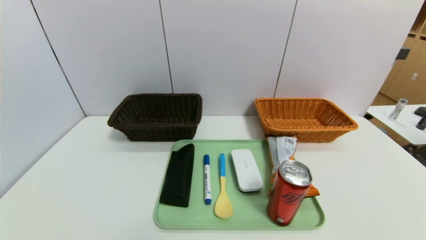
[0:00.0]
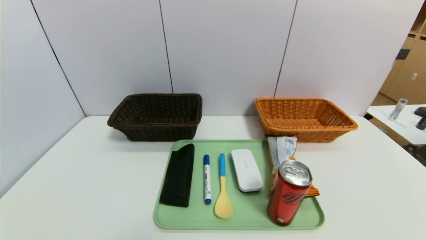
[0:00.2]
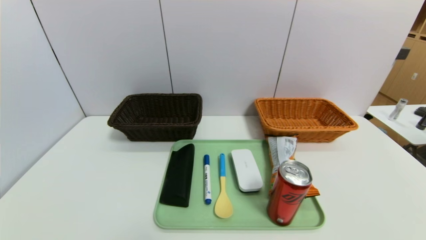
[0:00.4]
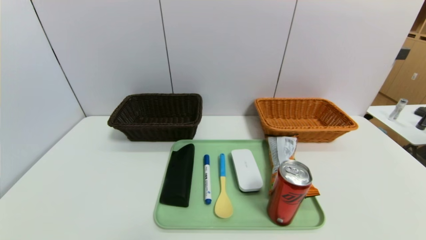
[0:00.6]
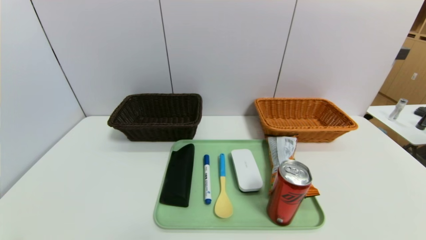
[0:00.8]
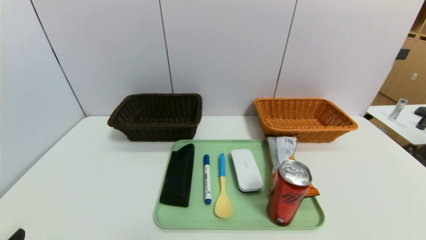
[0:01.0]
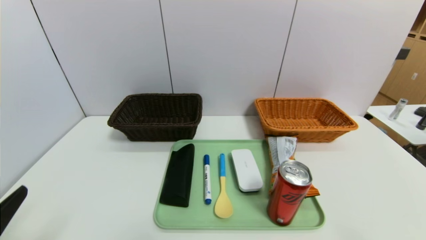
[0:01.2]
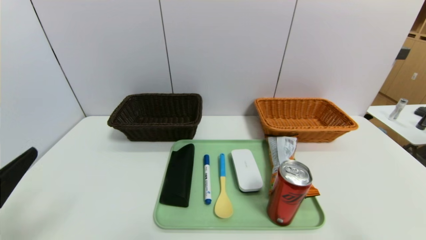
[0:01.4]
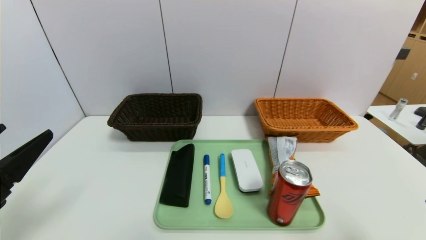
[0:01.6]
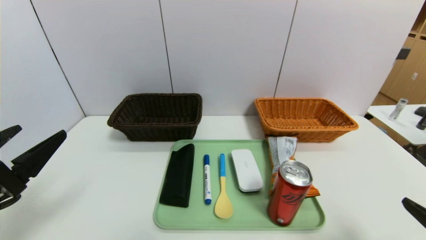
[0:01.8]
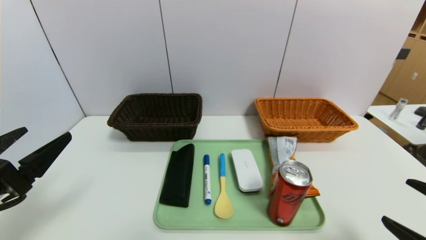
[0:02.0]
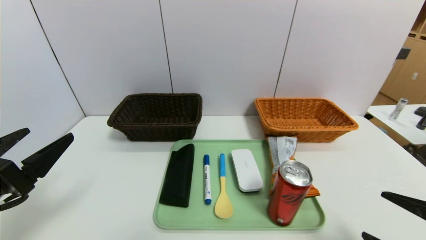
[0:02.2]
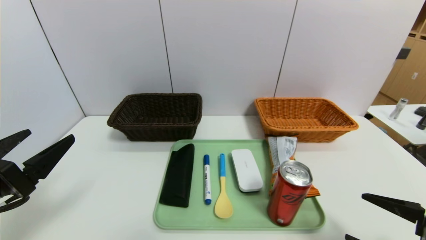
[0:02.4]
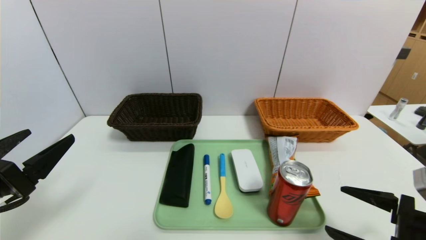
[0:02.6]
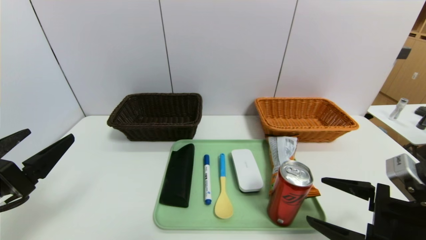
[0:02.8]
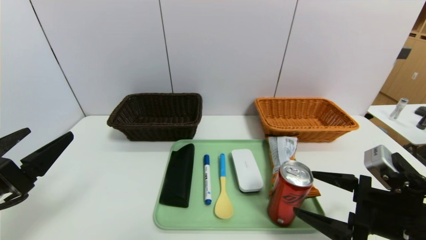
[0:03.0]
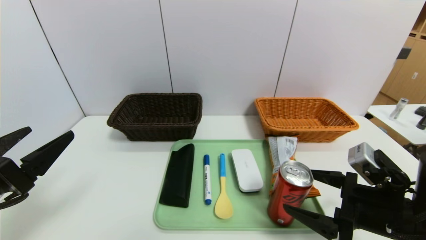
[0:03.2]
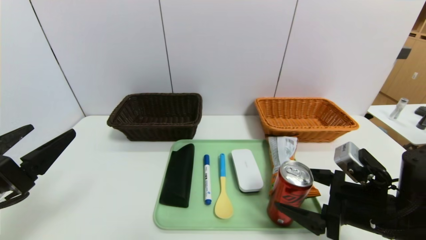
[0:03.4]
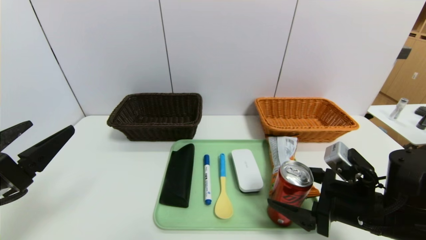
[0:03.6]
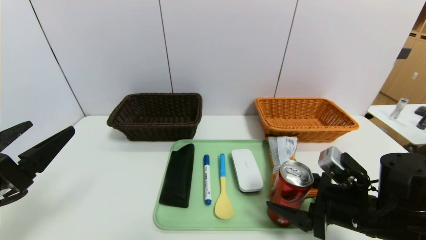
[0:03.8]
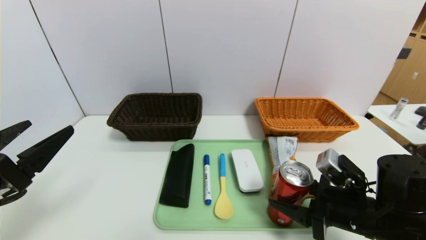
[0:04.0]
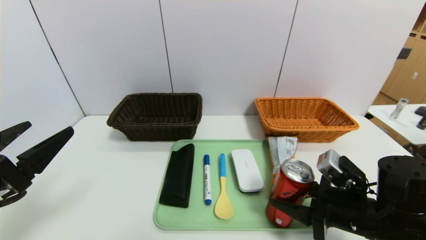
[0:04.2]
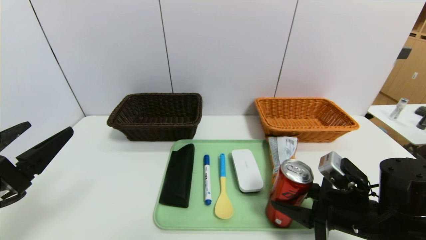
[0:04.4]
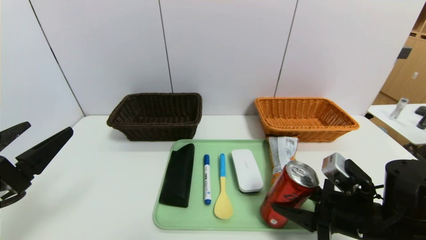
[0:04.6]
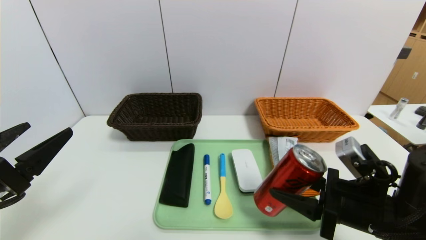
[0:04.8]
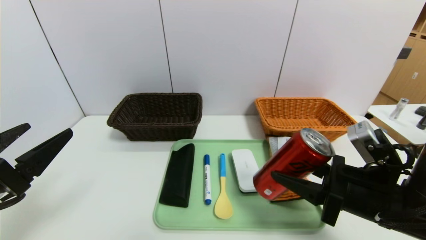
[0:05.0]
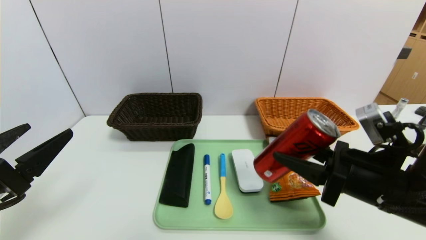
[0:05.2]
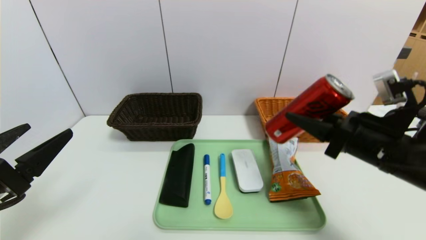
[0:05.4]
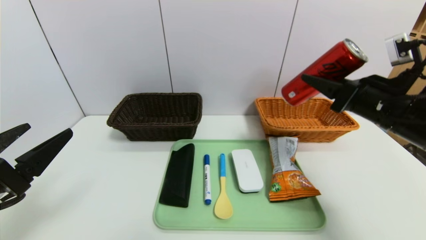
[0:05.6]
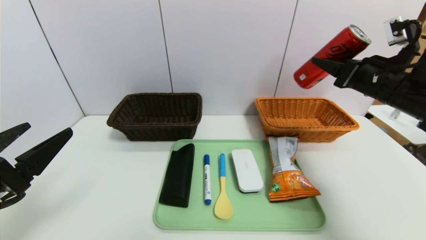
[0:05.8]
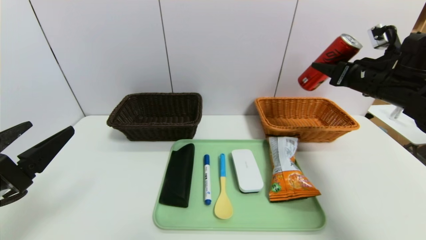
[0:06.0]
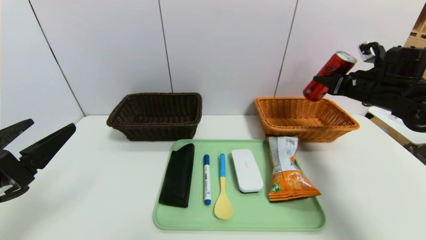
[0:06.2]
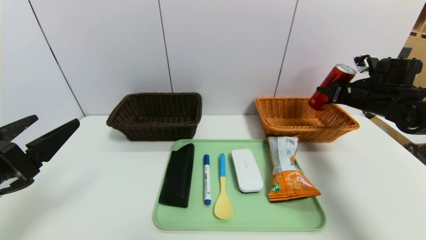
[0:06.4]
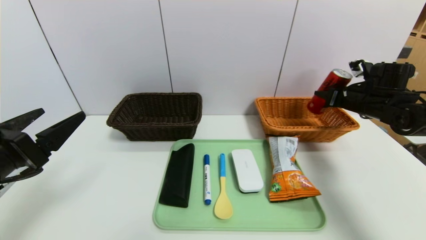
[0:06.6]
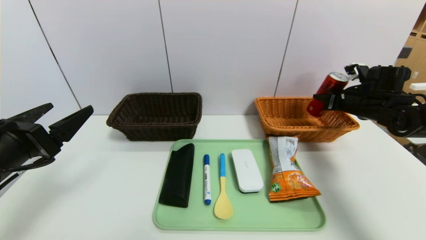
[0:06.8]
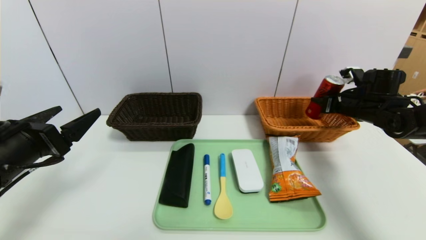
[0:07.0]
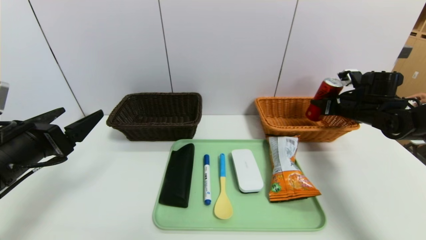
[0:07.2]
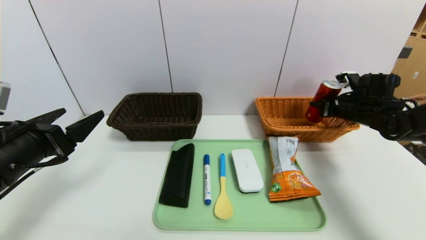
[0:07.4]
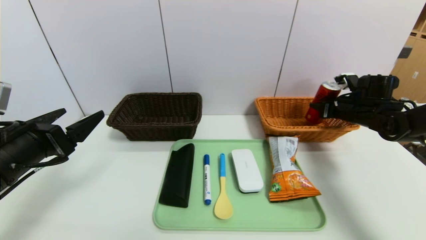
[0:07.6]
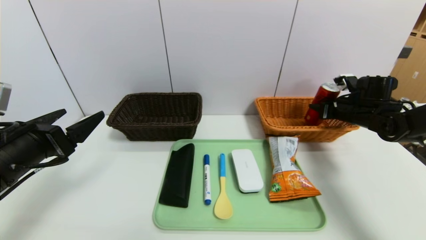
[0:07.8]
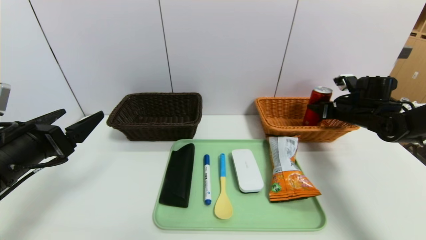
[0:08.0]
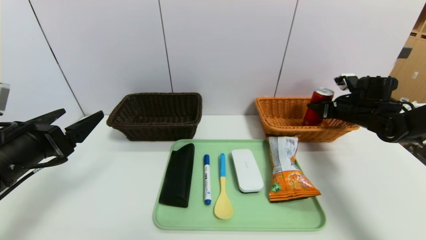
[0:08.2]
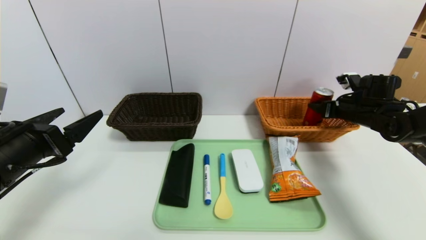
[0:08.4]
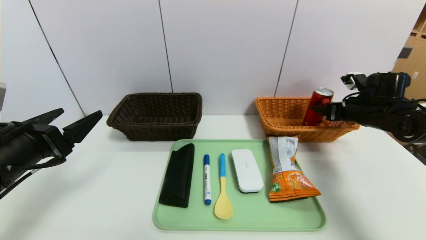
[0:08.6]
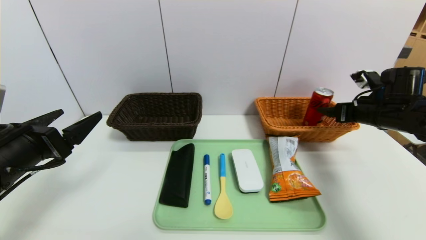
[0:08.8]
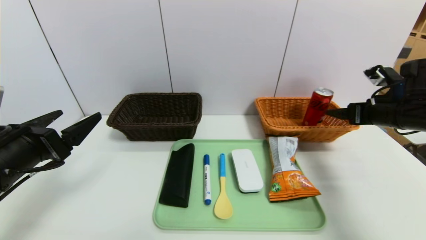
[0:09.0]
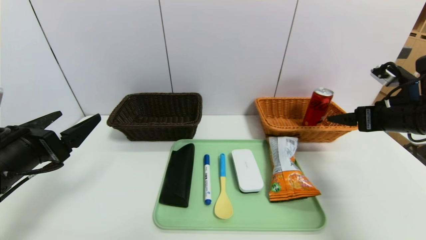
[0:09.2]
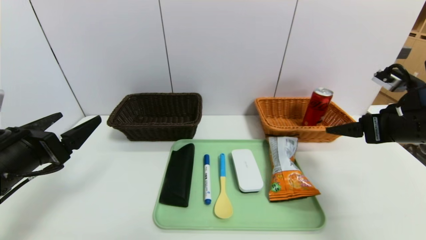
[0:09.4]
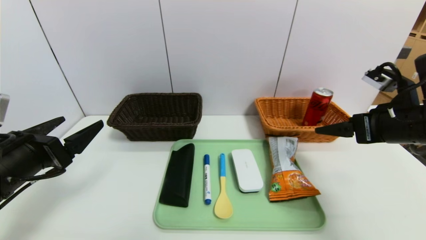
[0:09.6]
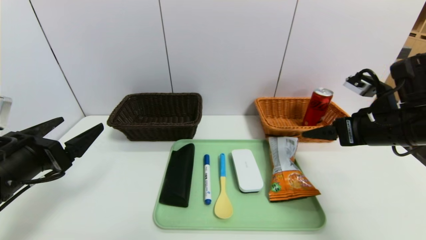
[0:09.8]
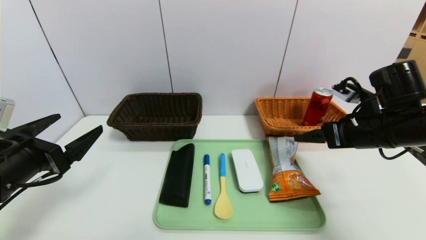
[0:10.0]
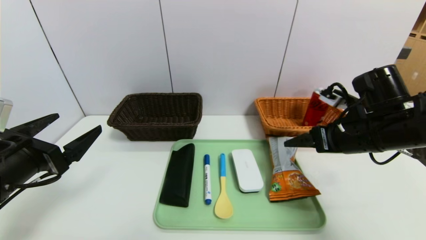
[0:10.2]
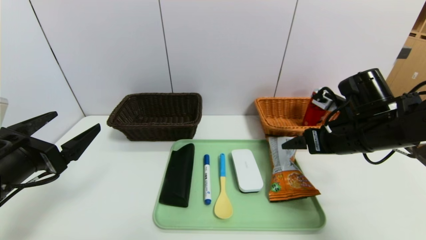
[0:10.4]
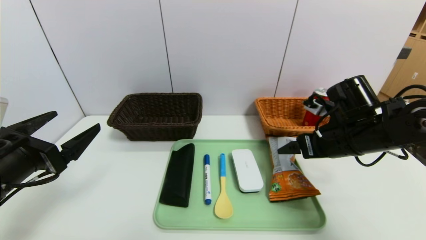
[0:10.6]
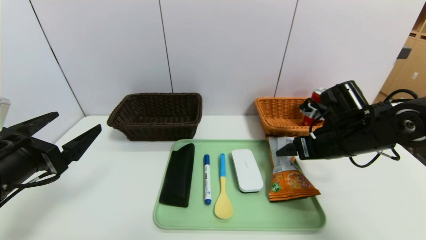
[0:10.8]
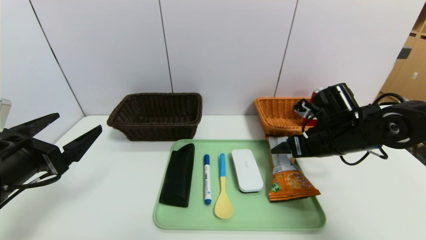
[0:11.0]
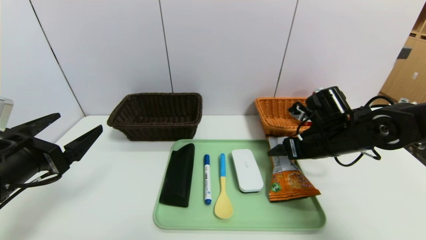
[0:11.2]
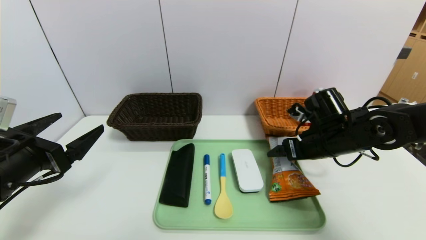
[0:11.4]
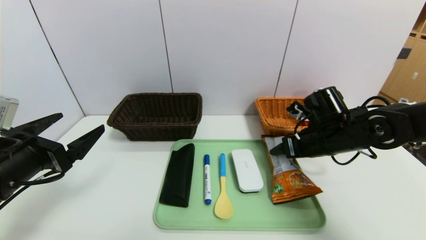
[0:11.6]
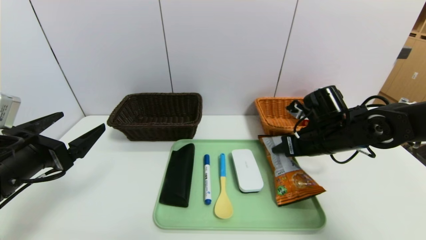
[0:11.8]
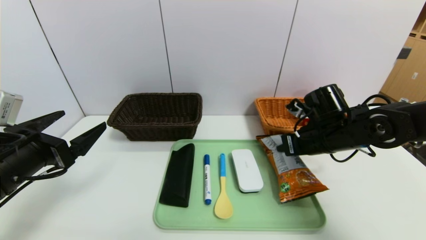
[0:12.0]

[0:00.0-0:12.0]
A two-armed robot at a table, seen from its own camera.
Task of the whole recording: place the food in the right basket with the right gripper, and place the non food items in the left basket with the left gripper.
Step, 0:00.0 to 0:08.8: Grasp the canned cola and put it in the right basket.
0:00.0 to 0:01.6: The left gripper moves upward and forward, roughly 20 cm.
0:01.6 to 0:03.0: The right gripper travels forward and to the left by about 15 cm.
0:03.0 to 0:04.4: The right gripper moves roughly 5 cm, and closes its fingers.
0:04.4 to 0:06.0: The right gripper moves forward, upward and to the right, some 25 cm.
0:06.0 to 0:07.6: The left gripper moves forward, about 5 cm. Meanwhile the right gripper is displaced downward and forward by approximately 10 cm.
0:07.6 to 0:09.0: The right gripper moves backward and upward, about 10 cm, and opens its fingers.
0:09.0 to 0:10.4: The right gripper travels to the left by about 10 cm.
0:10.4 to 0:12.0: The right gripper moves some 5 cm, and closes up.

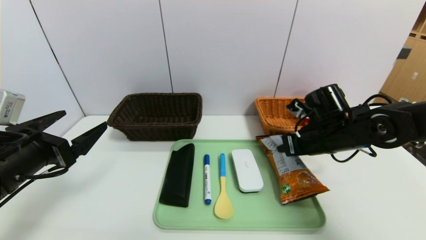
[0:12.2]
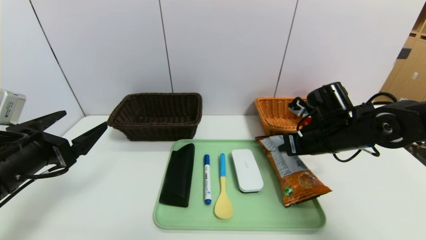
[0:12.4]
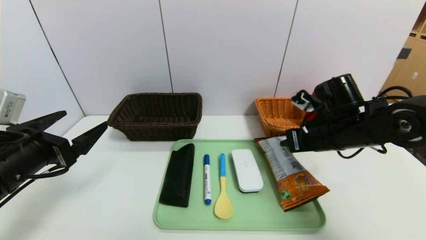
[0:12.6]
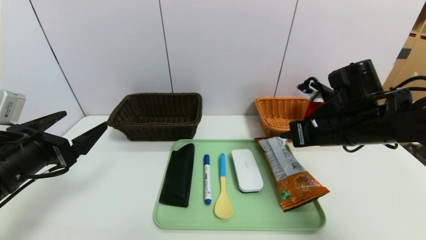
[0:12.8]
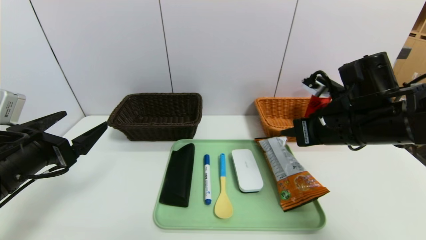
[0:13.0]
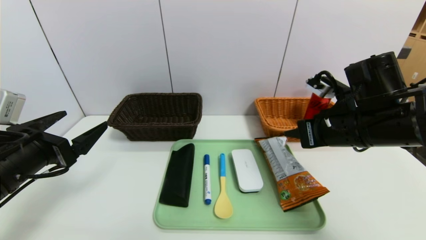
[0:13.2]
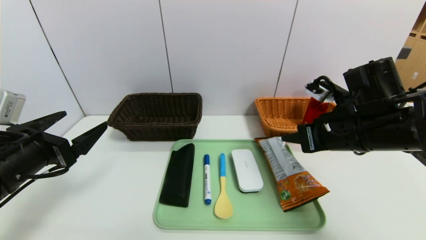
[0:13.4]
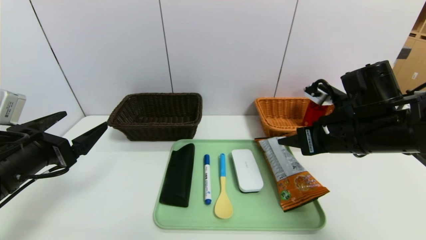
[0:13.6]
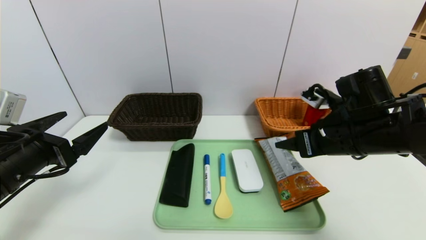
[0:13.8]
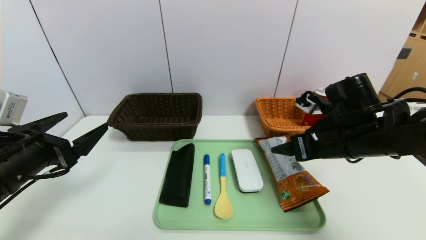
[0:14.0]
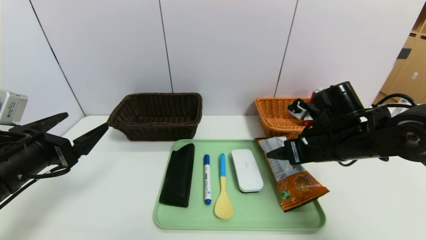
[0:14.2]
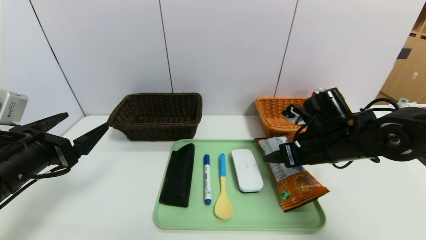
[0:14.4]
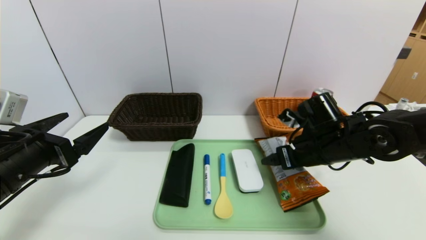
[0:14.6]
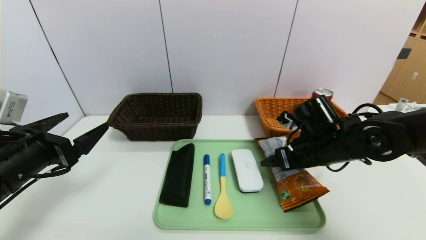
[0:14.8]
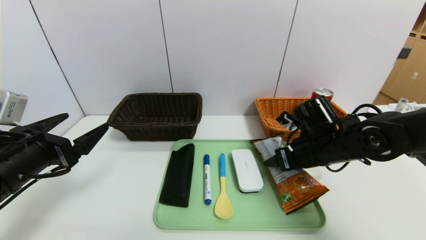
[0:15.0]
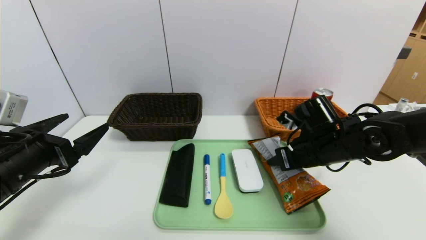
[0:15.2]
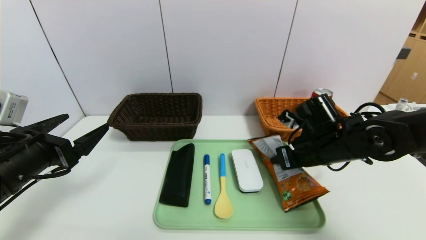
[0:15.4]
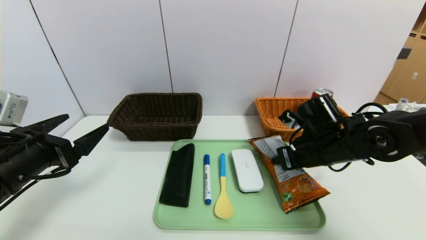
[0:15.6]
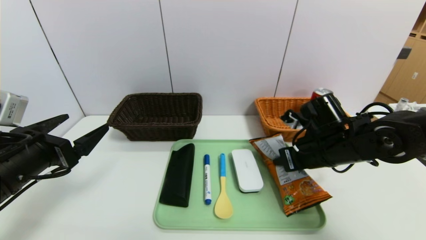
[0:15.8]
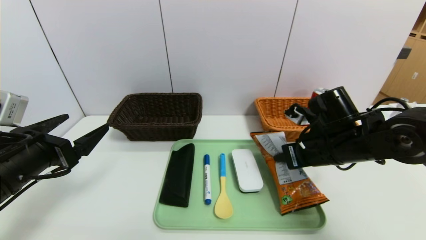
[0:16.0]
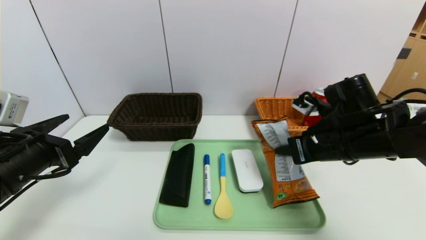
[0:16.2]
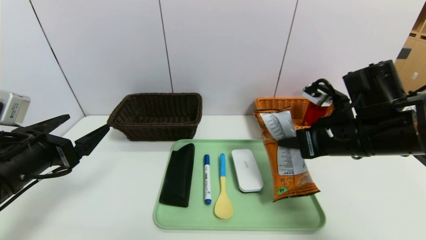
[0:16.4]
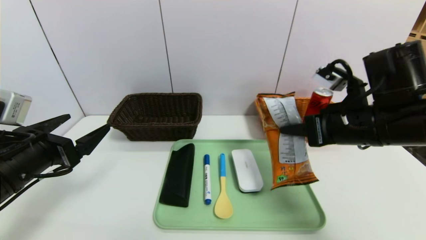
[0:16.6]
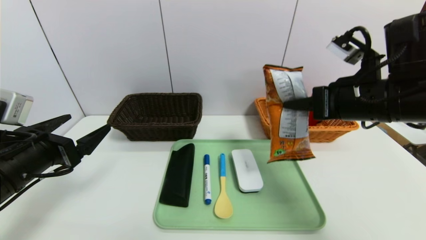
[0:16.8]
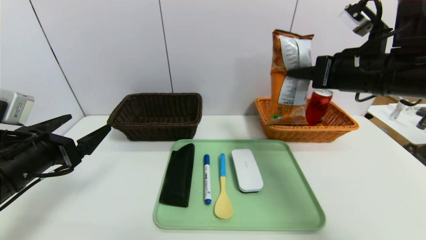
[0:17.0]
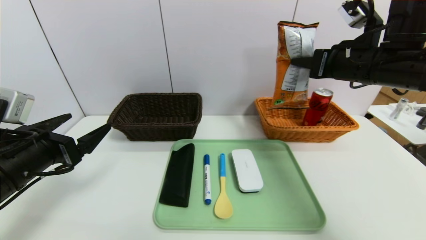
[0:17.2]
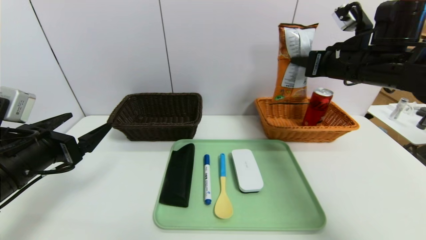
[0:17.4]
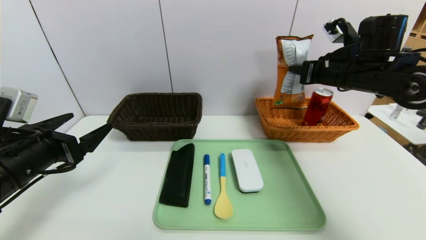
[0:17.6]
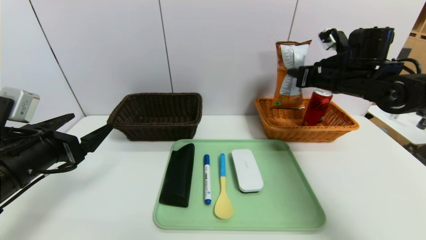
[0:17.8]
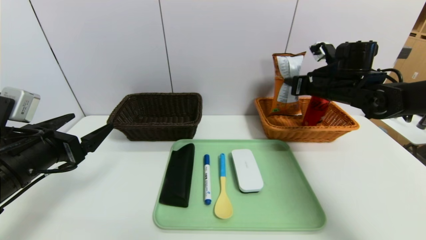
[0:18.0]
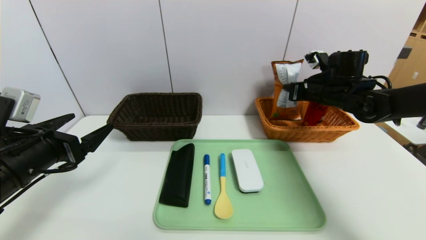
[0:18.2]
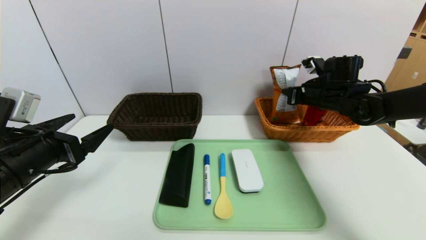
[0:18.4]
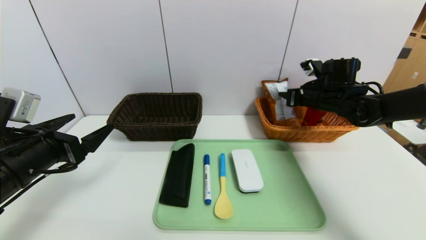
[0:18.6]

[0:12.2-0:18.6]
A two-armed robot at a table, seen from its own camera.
Task of the whole recording: place the food in the right basket with the right gripper, and place the non food items in the left basket with the left gripper.
0:12.2 to 0:13.8: The right gripper is displaced backward by about 5 cm, and opens.
0:13.8 to 0:15.4: The right gripper is displaced downward by about 5 cm, and closes up.
0:15.4 to 0:17.0: The right gripper heads upward, covering approximately 15 cm.
0:17.0 to 0:18.6: The right gripper moves forward and downward, some 20 cm.
